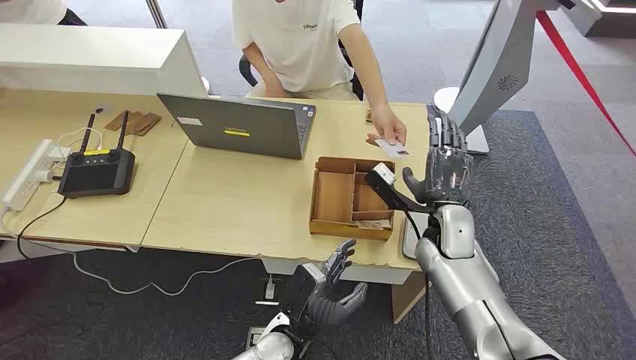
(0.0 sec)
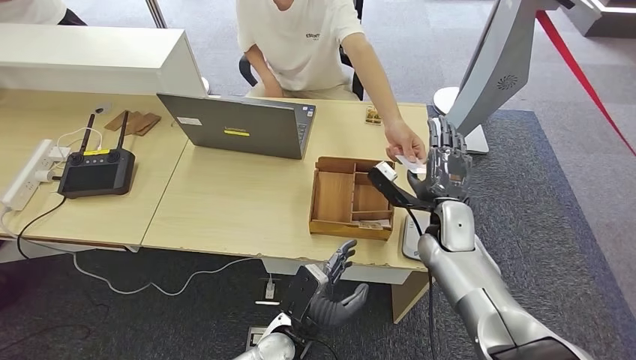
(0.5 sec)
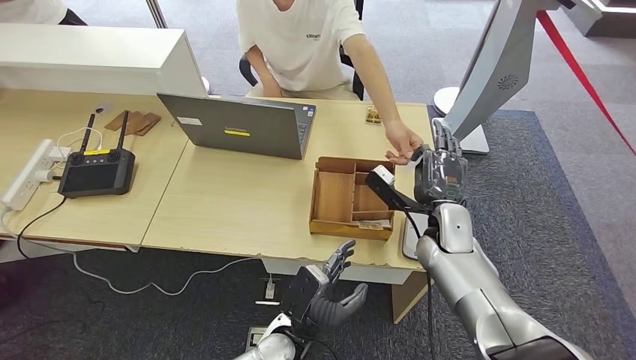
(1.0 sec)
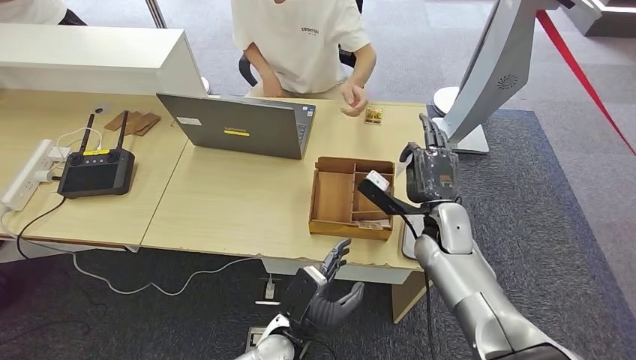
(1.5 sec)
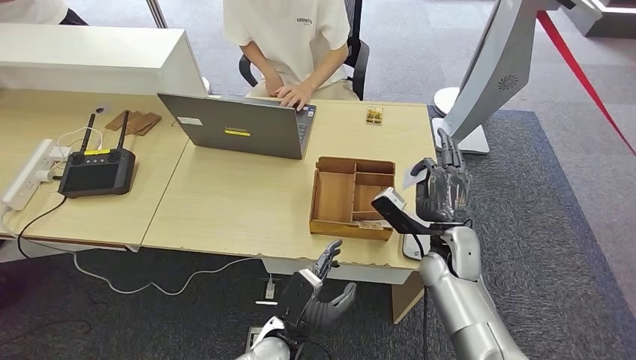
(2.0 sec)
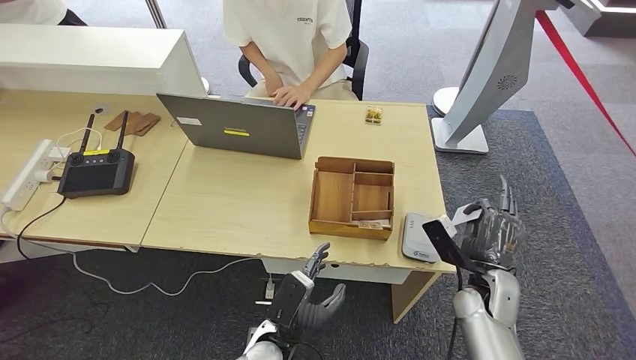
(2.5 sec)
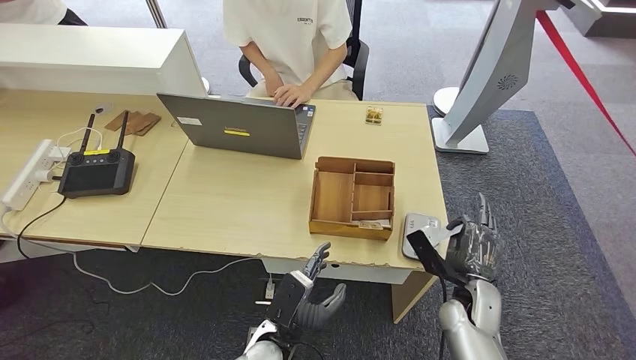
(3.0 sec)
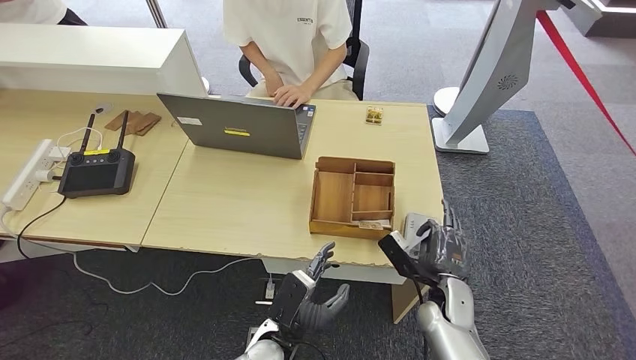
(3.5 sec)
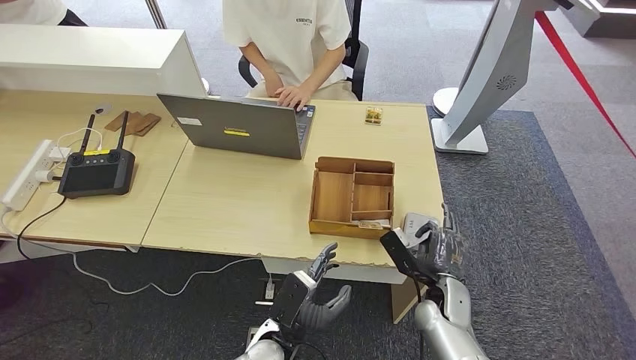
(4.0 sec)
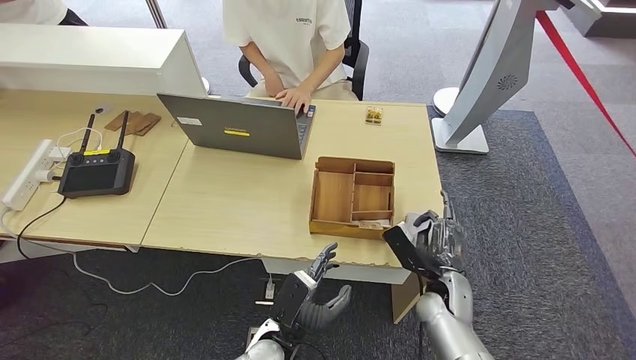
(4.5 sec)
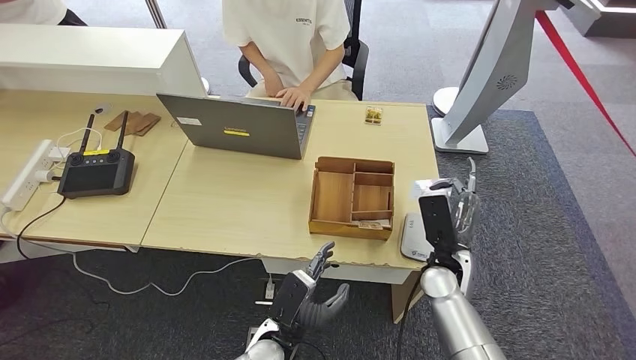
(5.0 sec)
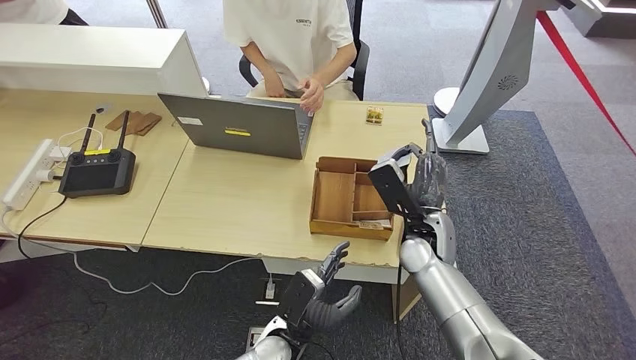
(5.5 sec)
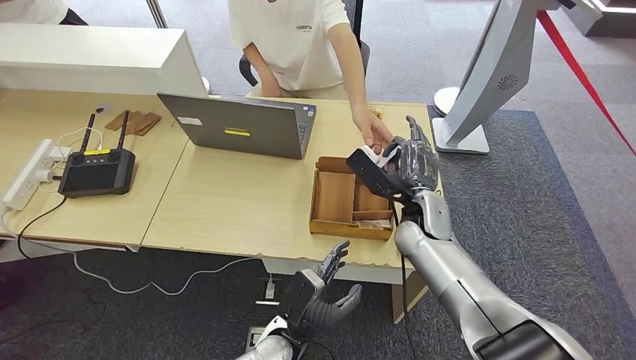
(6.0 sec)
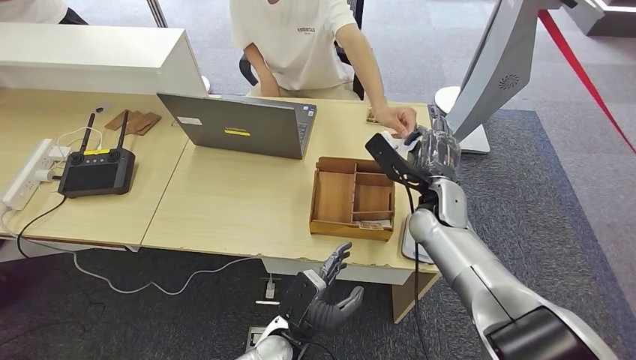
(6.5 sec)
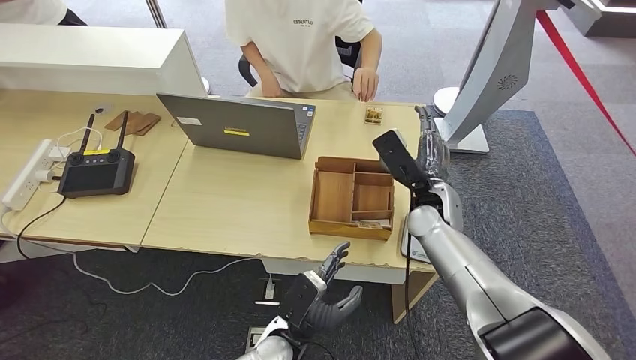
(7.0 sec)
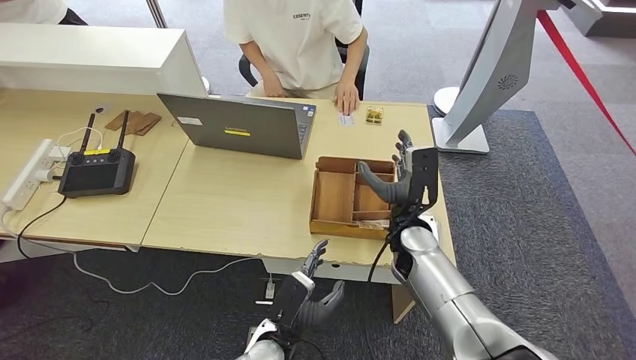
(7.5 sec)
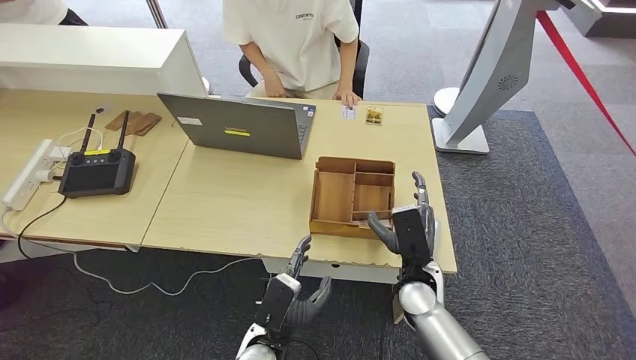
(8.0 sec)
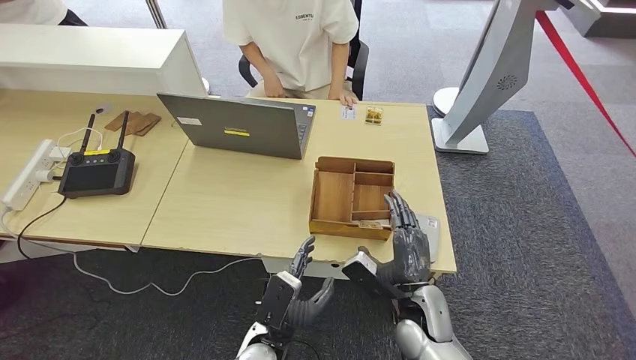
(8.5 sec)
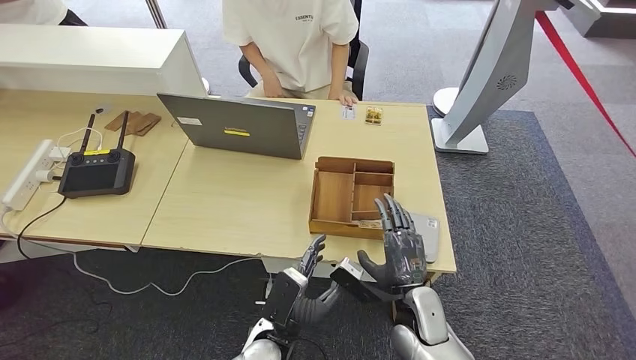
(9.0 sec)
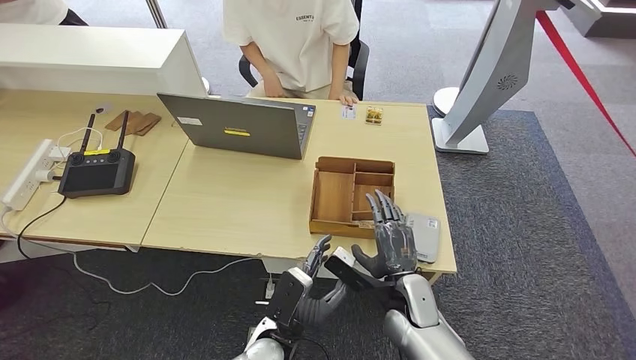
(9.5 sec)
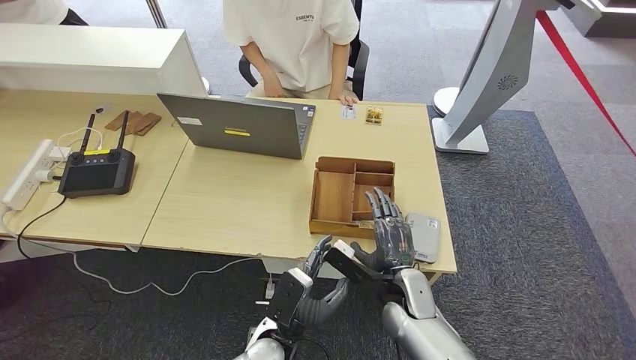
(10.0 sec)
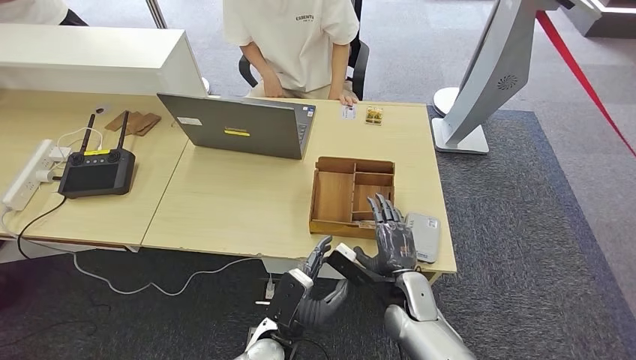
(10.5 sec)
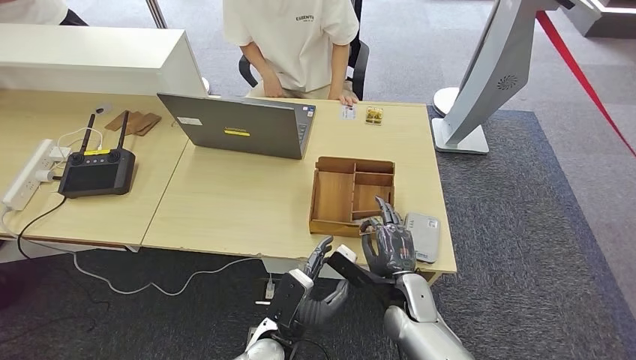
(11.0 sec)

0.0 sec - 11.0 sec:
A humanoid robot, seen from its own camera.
Step, 0.0 sec - 1.5 sec: Take the ID card from the person's hand.
Step, 2.0 sec - 5.0 sec: Place the ID card on the card reader.
Step, 5.5 sec - 7.5 sec: Hand the ID card to the person.
2.0 sec - 3.5 sec: The right hand is displaced downward and backward by roughly 10 cm.
3.5 sec - 5.5 sec: The right hand heads upward, forward and to the left, covering roughly 15 cm.
7.5 sec - 9.0 sec: The right hand goes some 15 cm backward and downward.
9.0 sec - 11.0 sec: The hands move only a little.

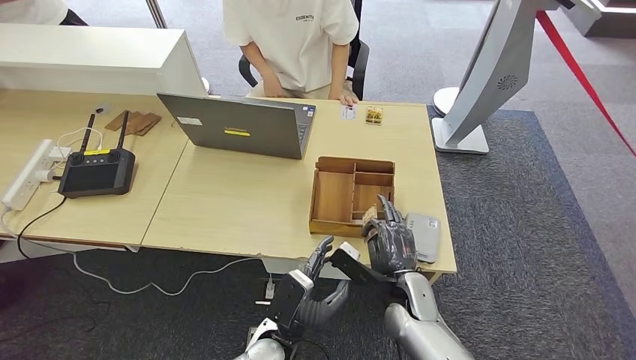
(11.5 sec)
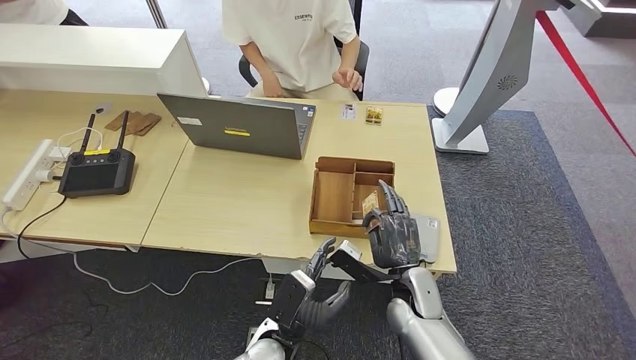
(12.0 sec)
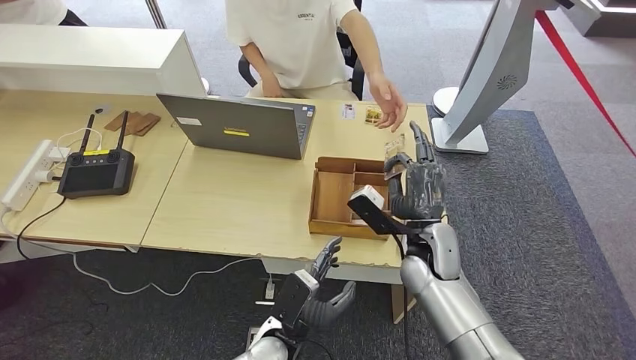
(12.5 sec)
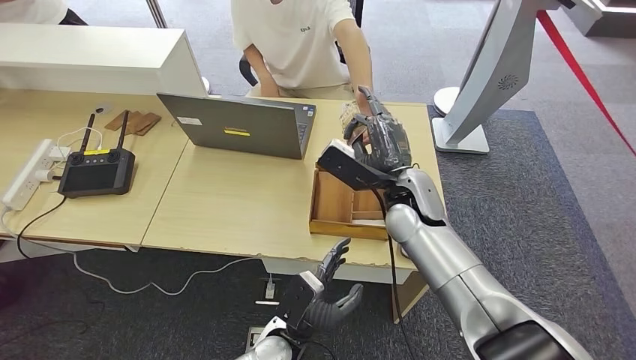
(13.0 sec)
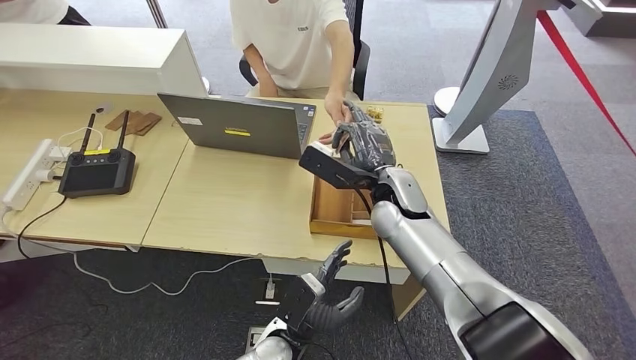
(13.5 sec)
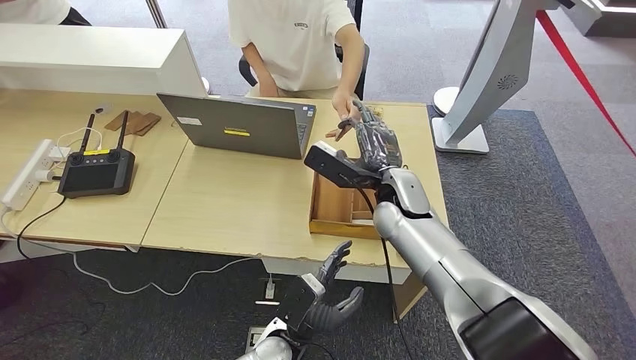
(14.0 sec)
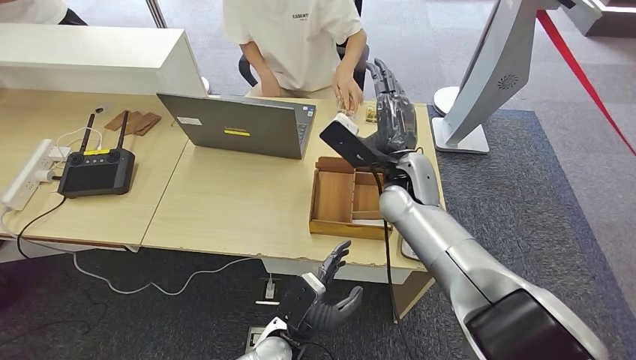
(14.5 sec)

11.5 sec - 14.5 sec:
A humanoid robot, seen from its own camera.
Step, 12.5 sec - 14.5 sec: Hand the room key to the person.
11.5 sec - 13.0 sec: The right hand goes some 20 cm upward and forward.
13.0 sec - 14.5 sec: The hands move only a little.
